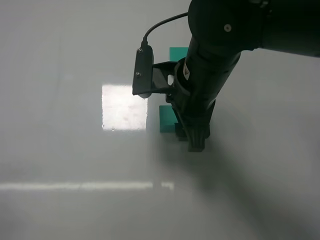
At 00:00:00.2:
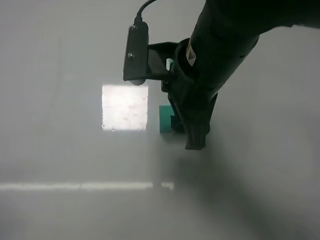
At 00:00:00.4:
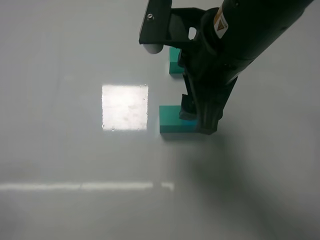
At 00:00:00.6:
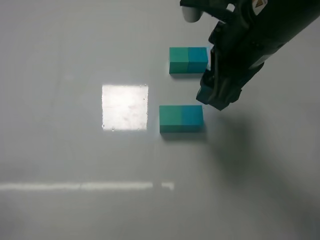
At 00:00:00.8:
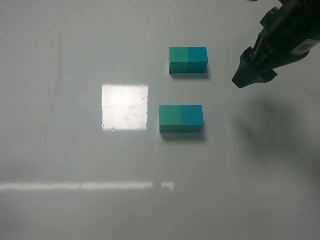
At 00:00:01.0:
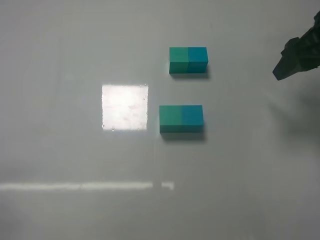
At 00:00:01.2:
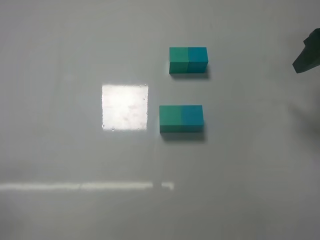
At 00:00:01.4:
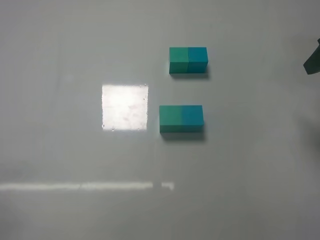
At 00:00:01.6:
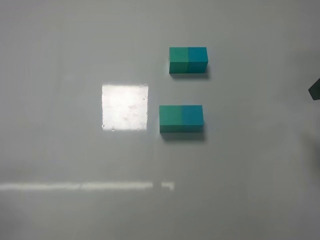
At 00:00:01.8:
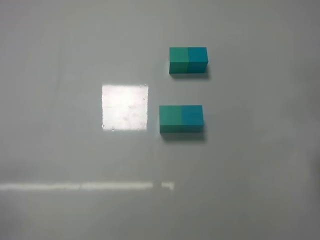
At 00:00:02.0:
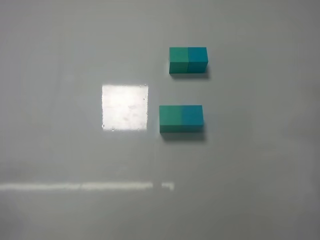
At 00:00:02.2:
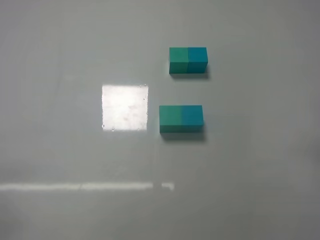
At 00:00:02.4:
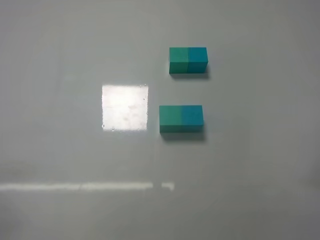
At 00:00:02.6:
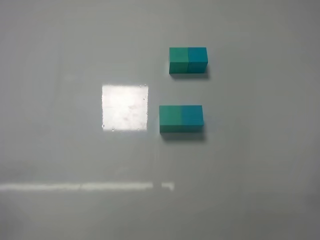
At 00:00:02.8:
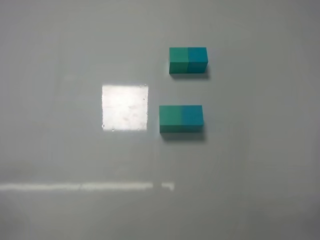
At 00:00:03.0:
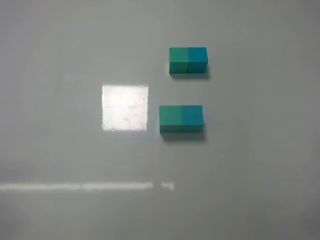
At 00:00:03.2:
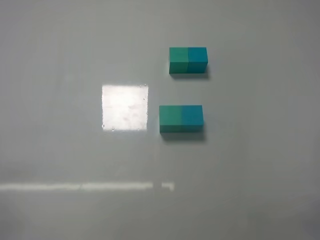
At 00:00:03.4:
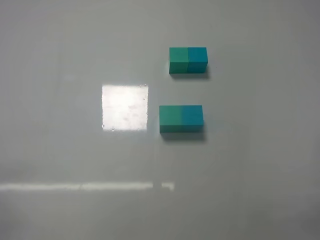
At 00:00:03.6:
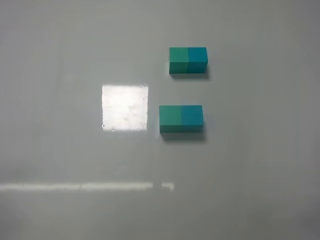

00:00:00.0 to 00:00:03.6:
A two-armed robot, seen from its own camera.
Task of the whole recording: According to the building block template in front, assemble the scattered blocks together.
00:00:00.0 to 00:00:01.8: The right gripper heads to the right, covering some 25 cm.
